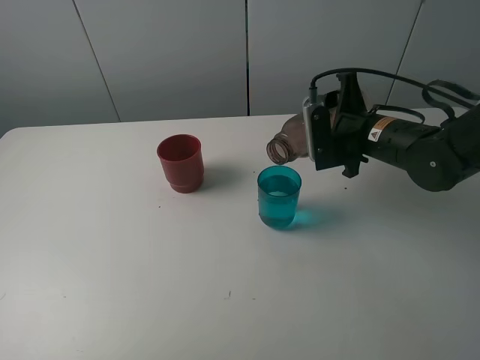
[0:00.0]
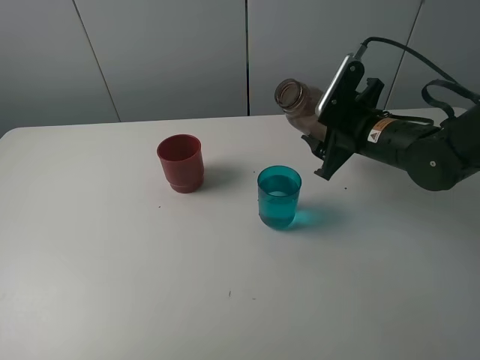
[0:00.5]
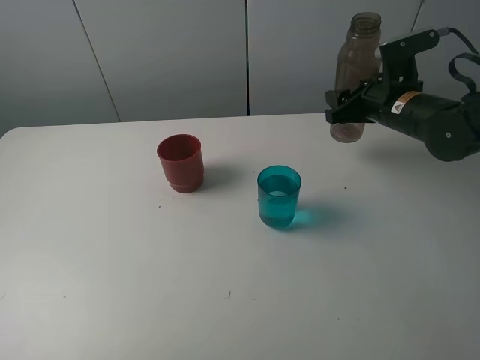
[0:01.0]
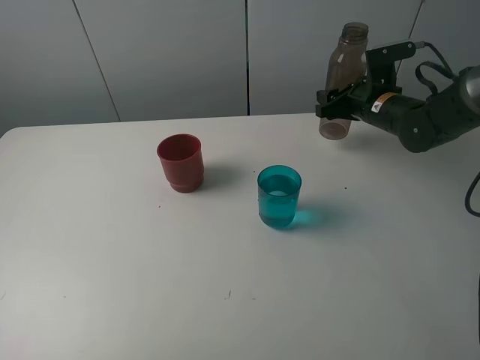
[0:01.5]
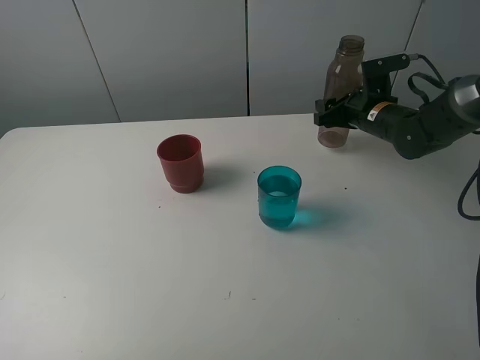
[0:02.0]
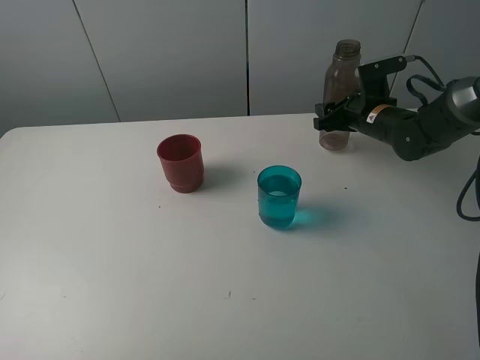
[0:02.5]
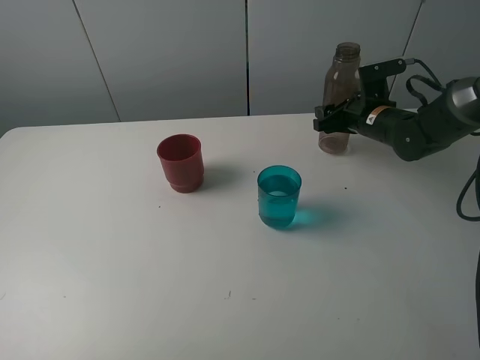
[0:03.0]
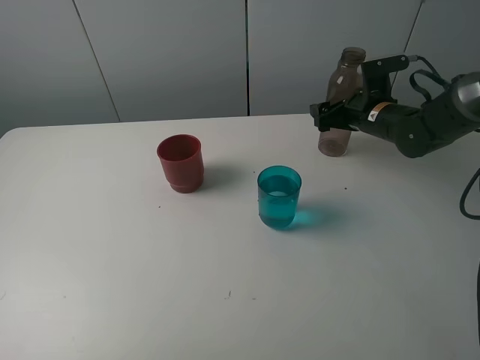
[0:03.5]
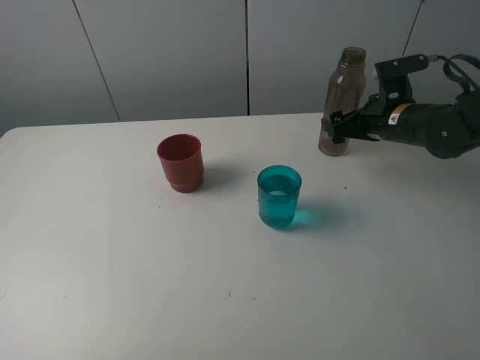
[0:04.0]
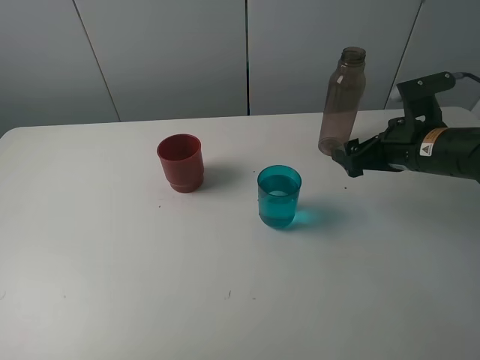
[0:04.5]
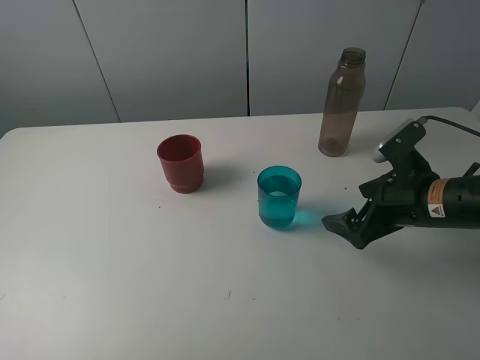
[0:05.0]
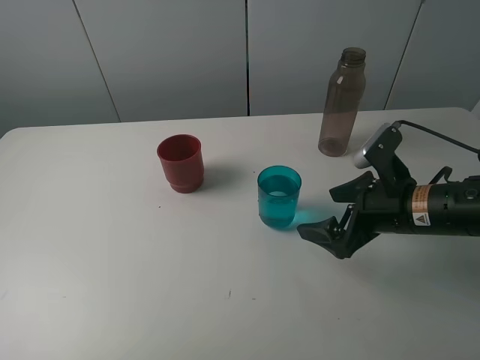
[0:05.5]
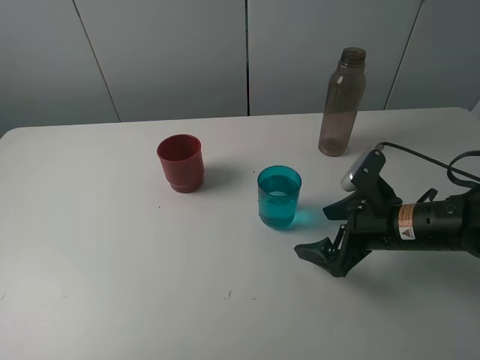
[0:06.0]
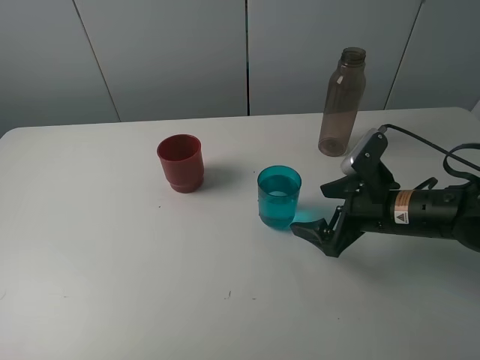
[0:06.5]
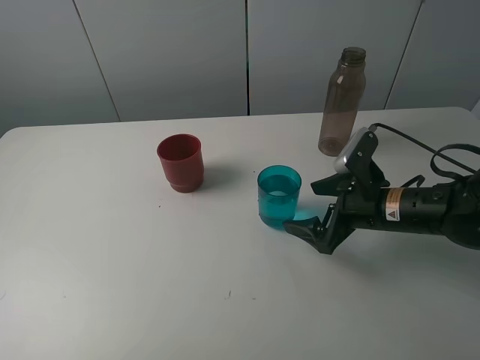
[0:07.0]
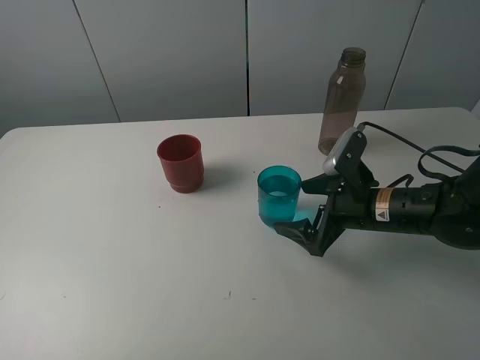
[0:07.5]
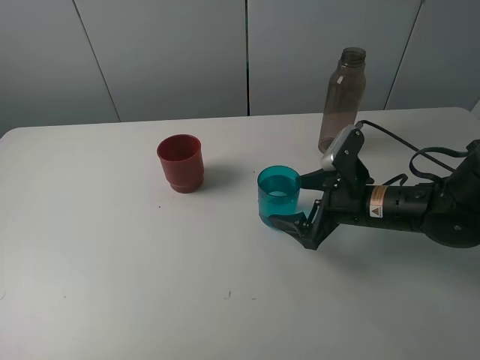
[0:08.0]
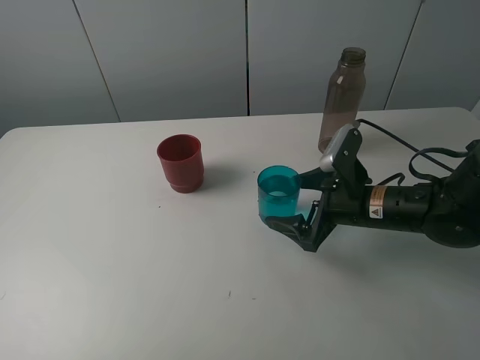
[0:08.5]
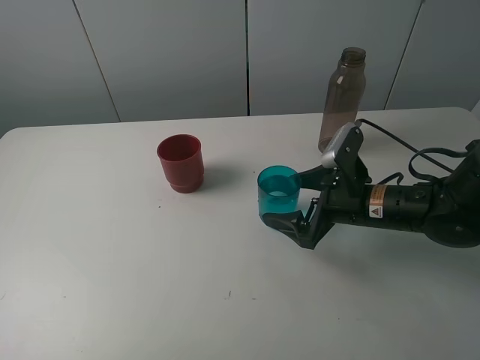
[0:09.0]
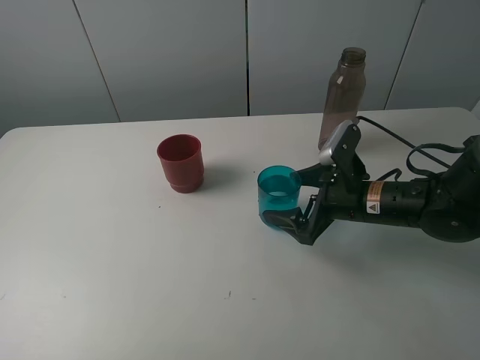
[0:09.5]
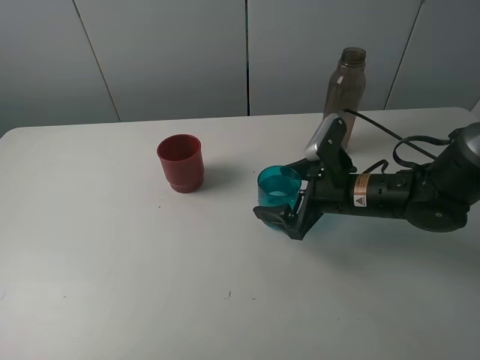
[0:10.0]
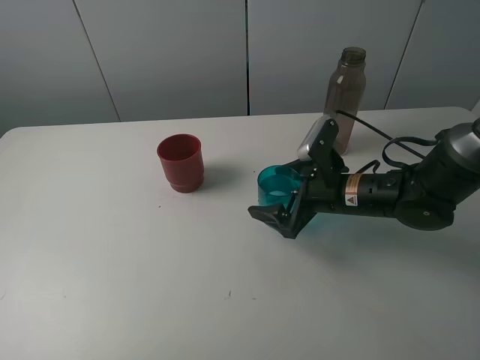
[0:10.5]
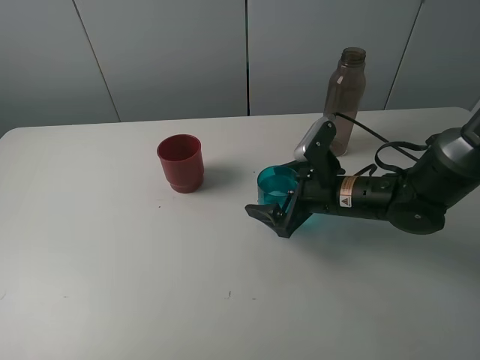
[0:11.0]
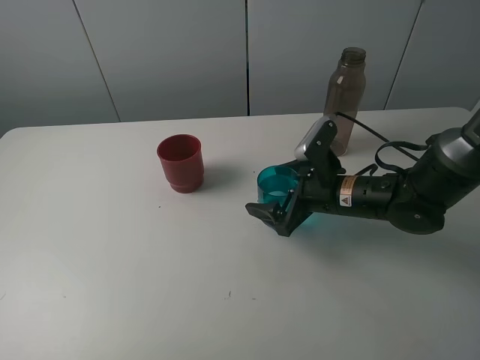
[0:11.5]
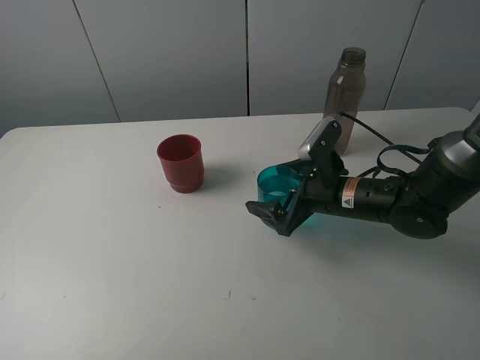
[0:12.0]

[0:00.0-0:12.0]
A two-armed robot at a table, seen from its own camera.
Task of the whole recording: pick up the bottle and pour water into the cup, then pick up the cup containing water and pour it into another cup.
Step, 0:00.0 to 0:03.5: Place the brown bottle with the right gripper.
Step, 0:04.0 to 0:11.0: Grasp the blue cup with the right gripper.
0:00.0 to 0:02.0: The right gripper moves forward, about 10 cm.
0:02.0 to 0:04.0: The right gripper goes some 5 cm backward, and opens.
0:04.0 to 0:06.0: The right gripper shifts some 15 cm backward.
0:06.0 to 0:08.0: The grippers make only small movements.
0:08.0 to 0:12.0: The grippers move only a little.

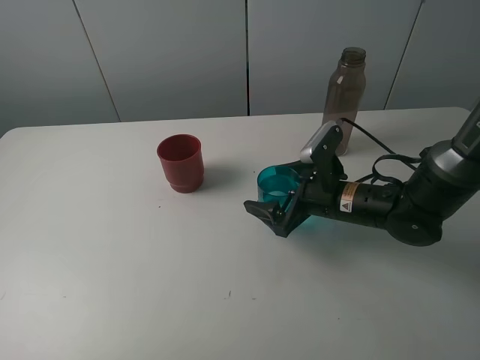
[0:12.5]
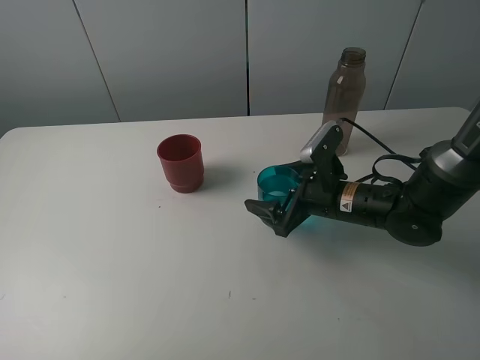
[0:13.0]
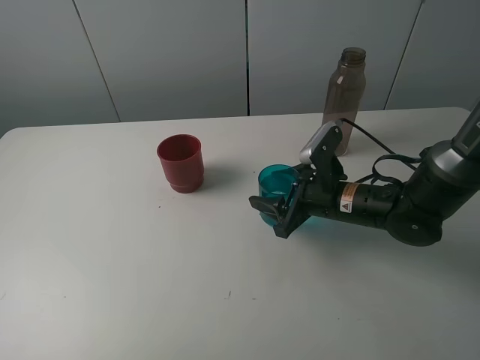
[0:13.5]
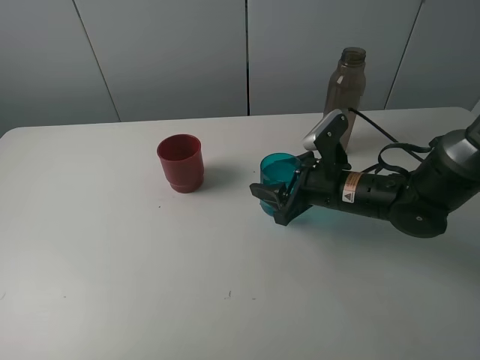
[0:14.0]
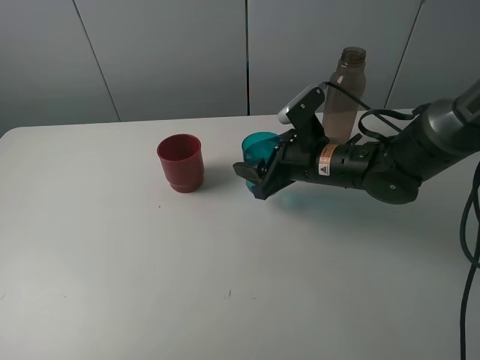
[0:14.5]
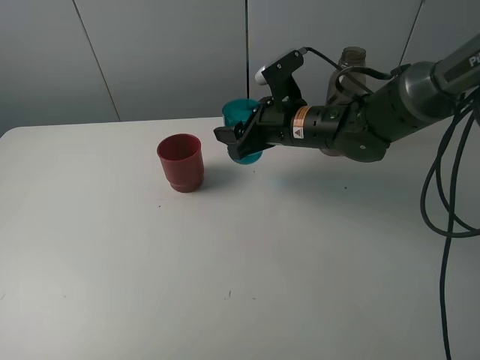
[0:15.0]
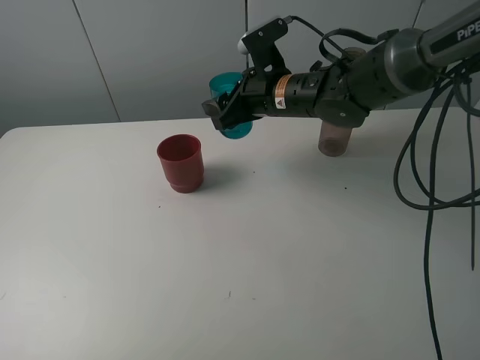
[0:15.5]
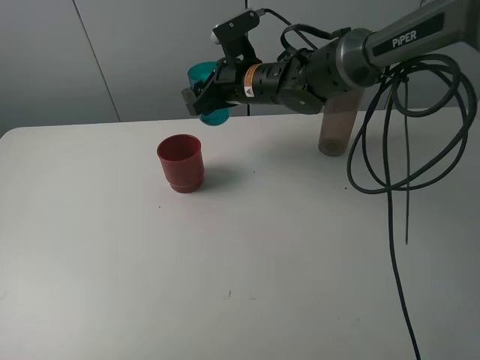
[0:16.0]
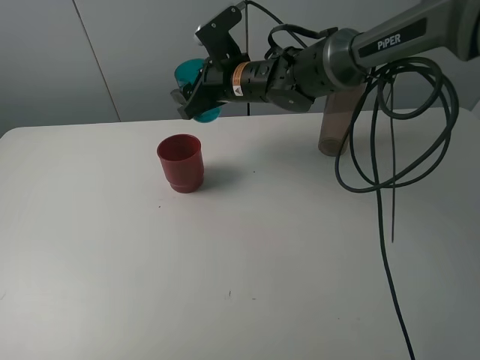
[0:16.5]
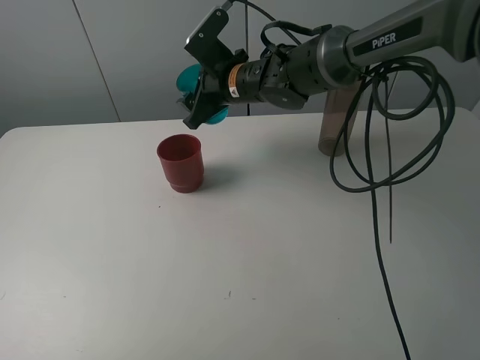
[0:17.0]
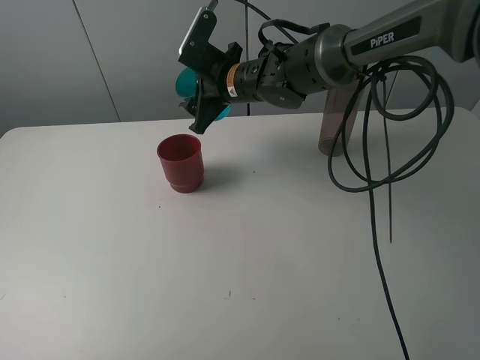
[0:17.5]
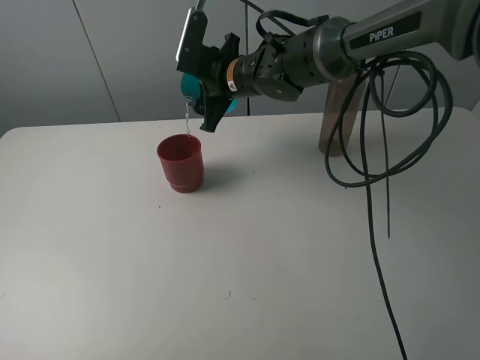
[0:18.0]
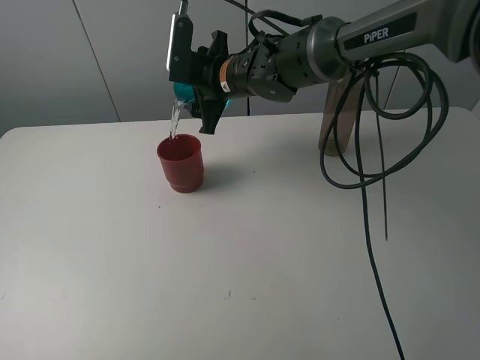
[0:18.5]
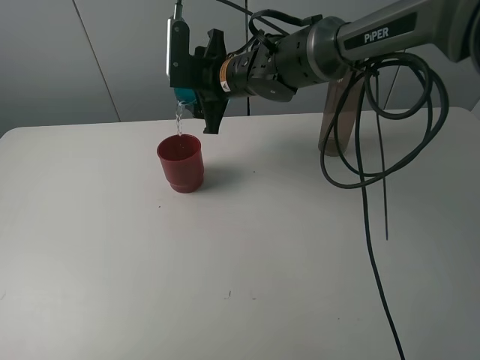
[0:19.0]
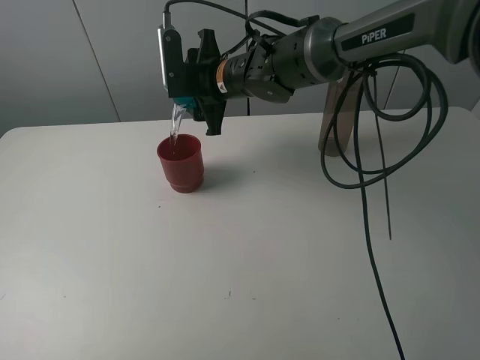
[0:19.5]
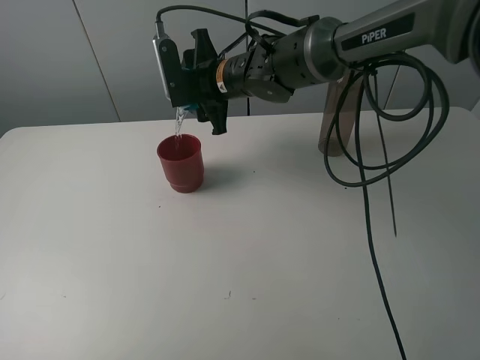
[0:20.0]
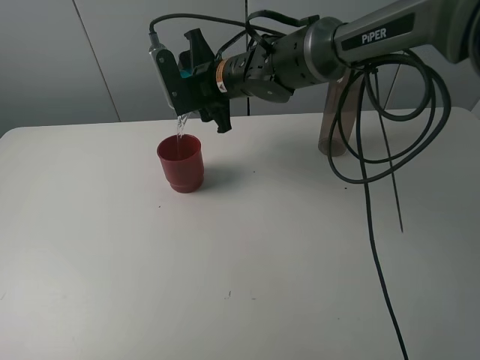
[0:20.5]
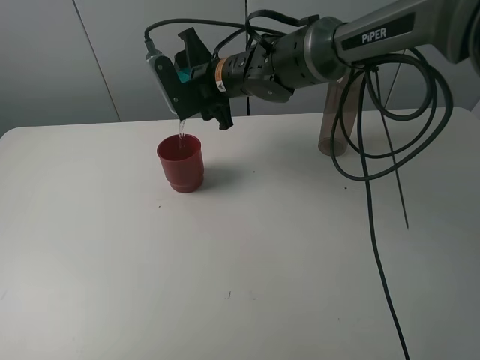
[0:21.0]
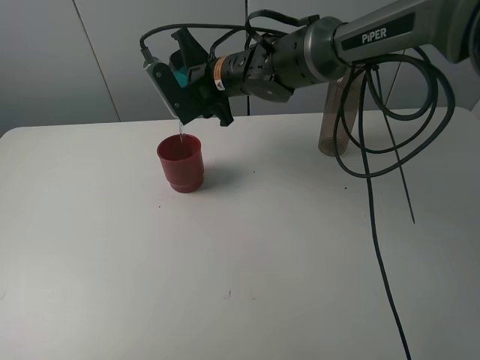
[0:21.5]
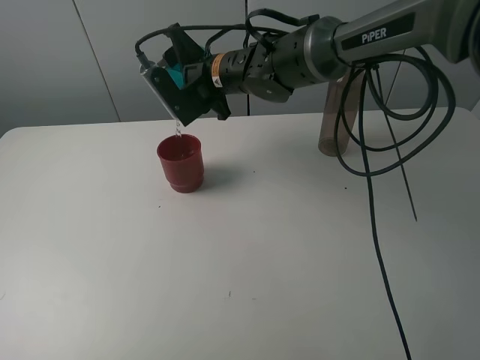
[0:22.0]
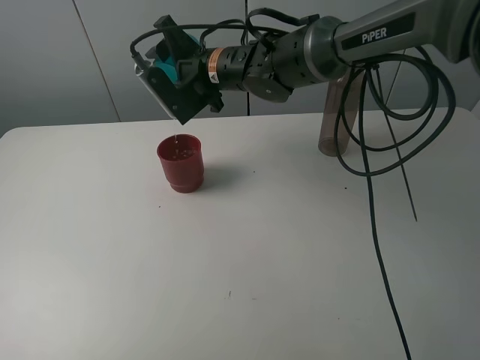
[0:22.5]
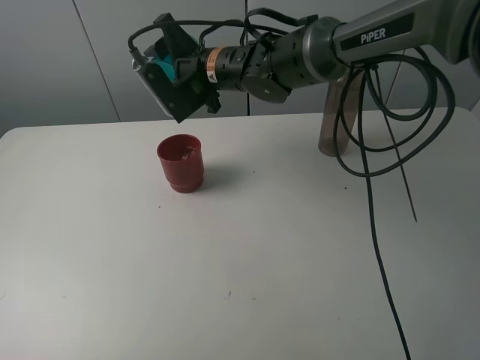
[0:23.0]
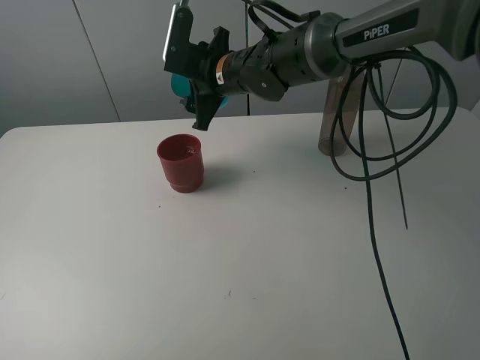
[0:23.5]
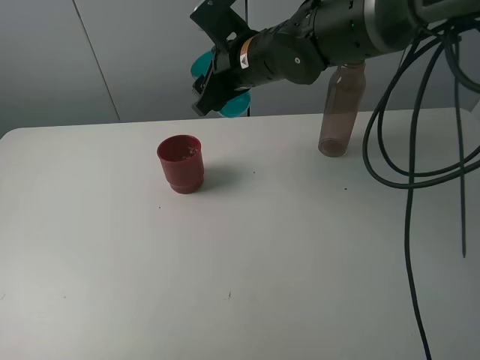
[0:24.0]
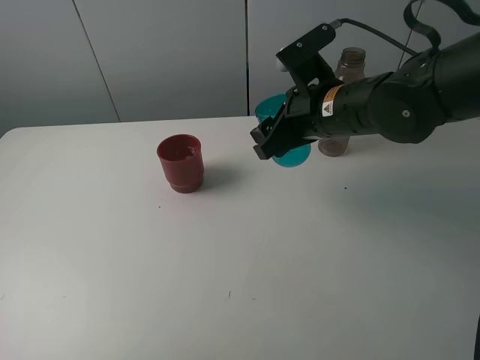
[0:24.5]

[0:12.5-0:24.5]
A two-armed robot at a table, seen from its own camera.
Task of the whole recording: pick up the bottle and pour water into the cup, then pick up the cup containing water and pour it into another cup.
Step, 0:12.5 to 0:23.5: Pour water from blue cup to red cup with the right gripper.
0:12.5 to 0:14.5: The right gripper changes place by some 5 cm, and closes.
0:14.5 to 0:16.5: The right gripper moves to the left, forward and upward, approximately 15 cm.
0:22.5 to 0:24.5: The right gripper goes roughly 20 cm to the right and backward.

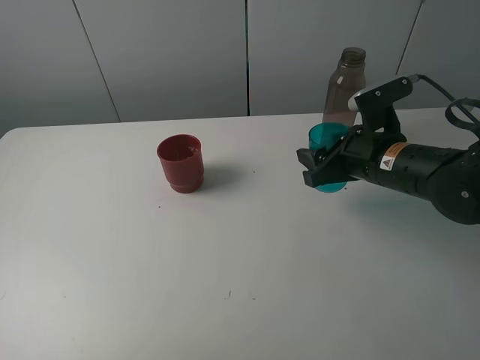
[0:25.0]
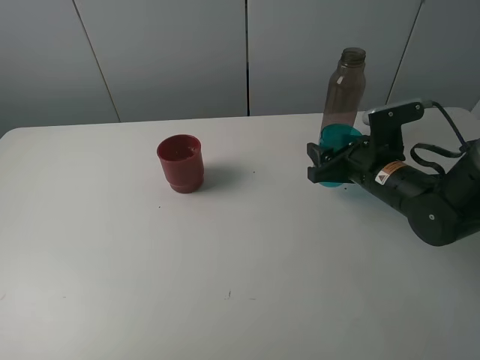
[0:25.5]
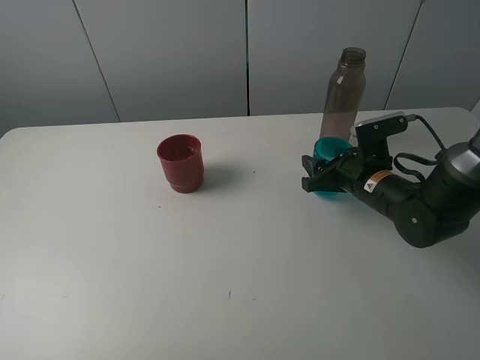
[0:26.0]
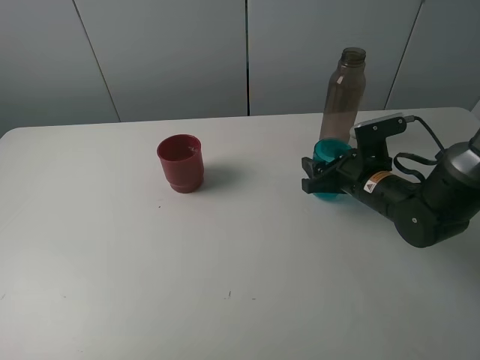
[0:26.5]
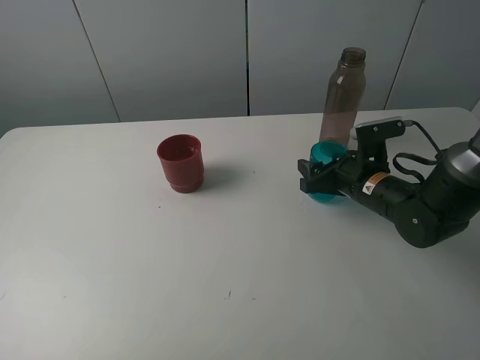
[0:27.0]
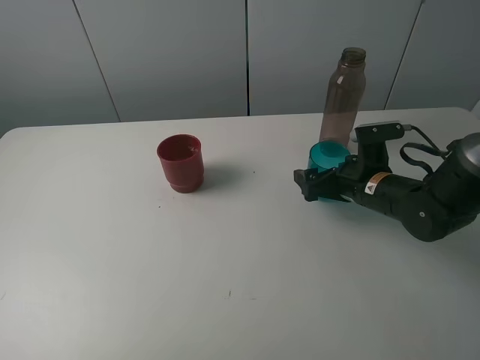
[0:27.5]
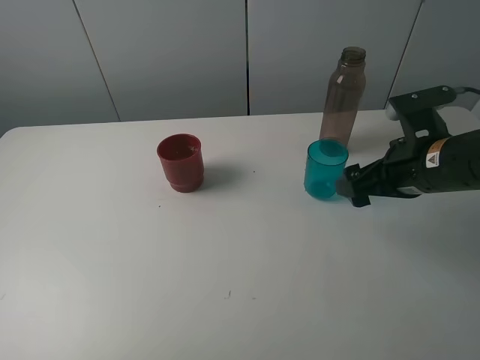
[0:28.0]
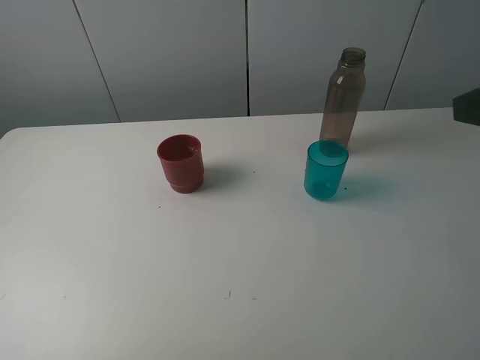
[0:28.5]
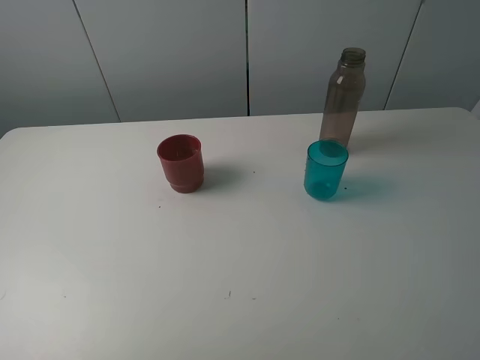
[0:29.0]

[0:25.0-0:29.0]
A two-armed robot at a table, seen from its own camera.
Task of the whole recording: pick up the bottle and pour water into the cup, then pick up the cup containing water and pour it into another cup.
Step, 0:25.0 to 0:27.0: Place the blue cup with the right gripper.
0:25.0 to 0:27.0: The right gripper shifts about 5 cm downward, and opens.
0:27.0 to 0:29.0: The right gripper moves backward and upward, roughly 40 cm, and opens.
